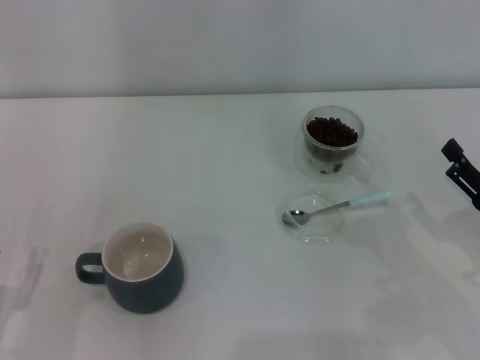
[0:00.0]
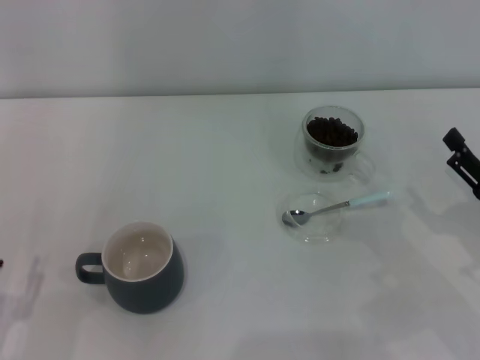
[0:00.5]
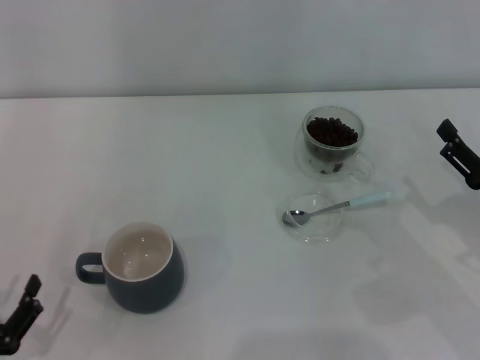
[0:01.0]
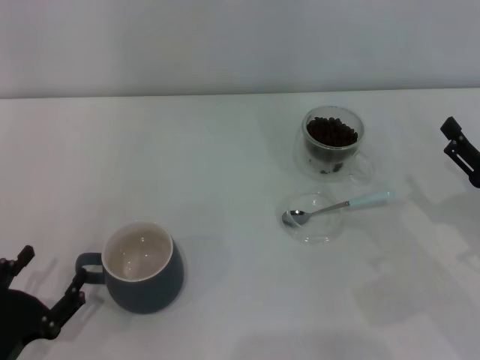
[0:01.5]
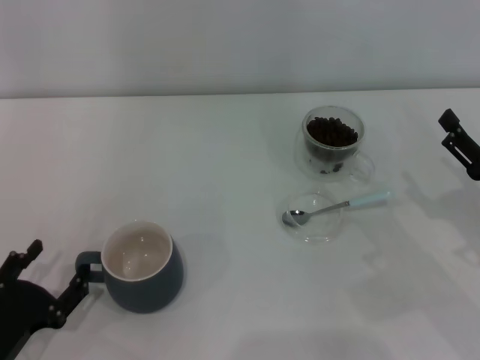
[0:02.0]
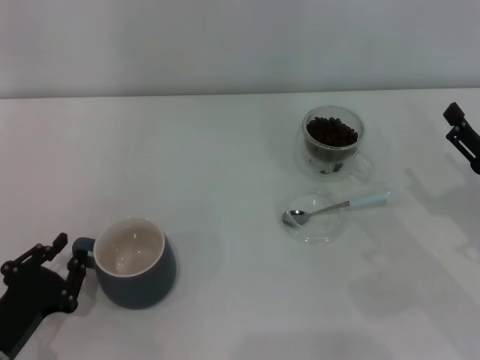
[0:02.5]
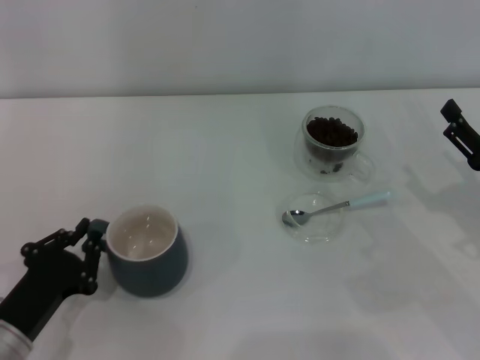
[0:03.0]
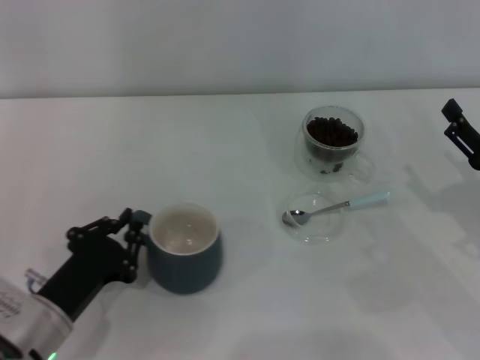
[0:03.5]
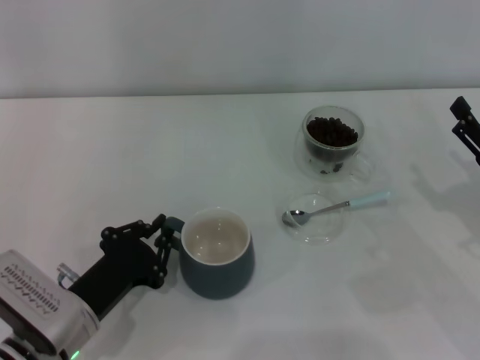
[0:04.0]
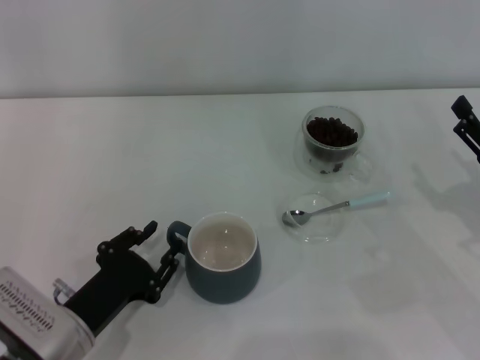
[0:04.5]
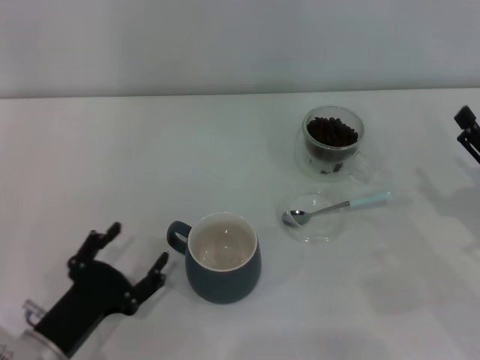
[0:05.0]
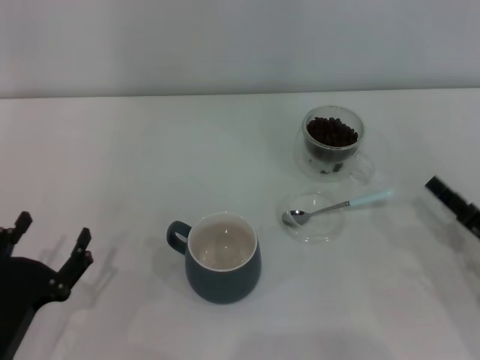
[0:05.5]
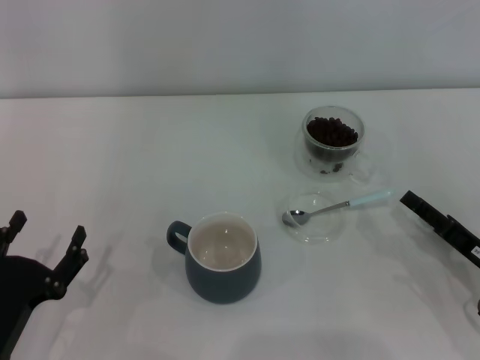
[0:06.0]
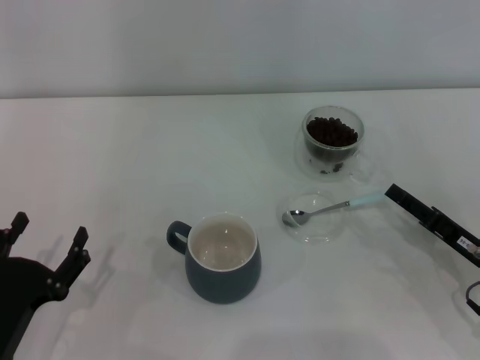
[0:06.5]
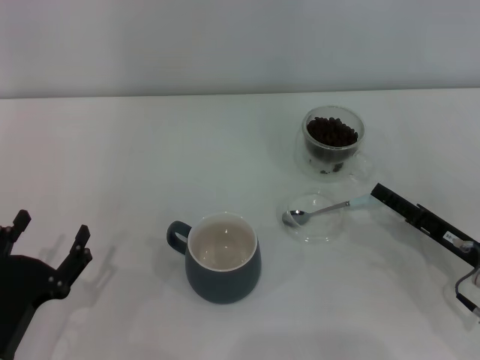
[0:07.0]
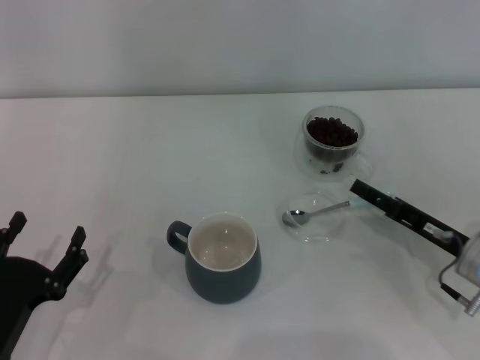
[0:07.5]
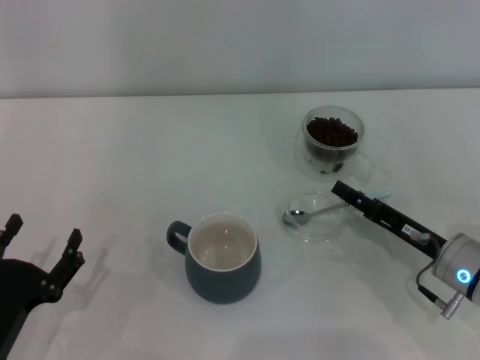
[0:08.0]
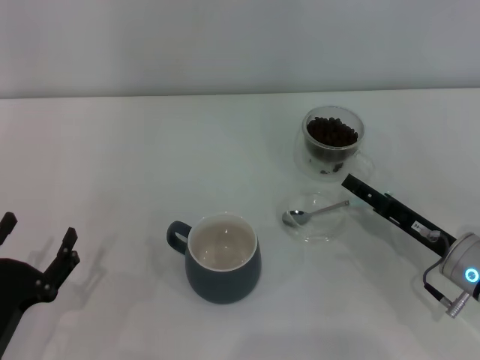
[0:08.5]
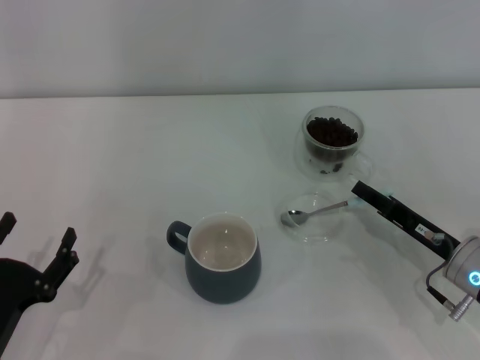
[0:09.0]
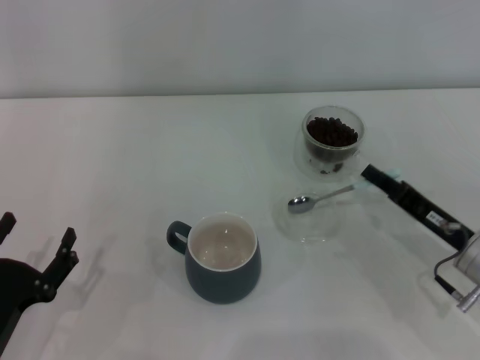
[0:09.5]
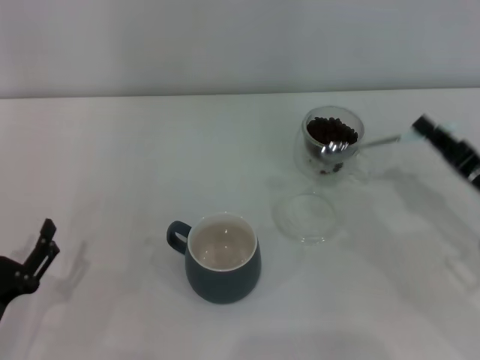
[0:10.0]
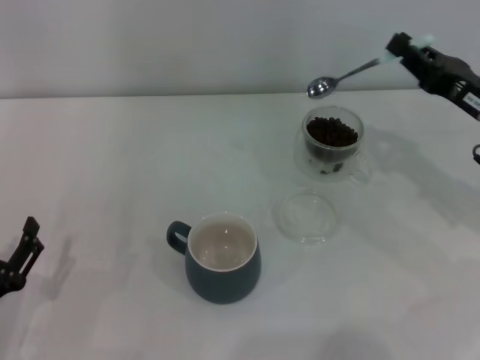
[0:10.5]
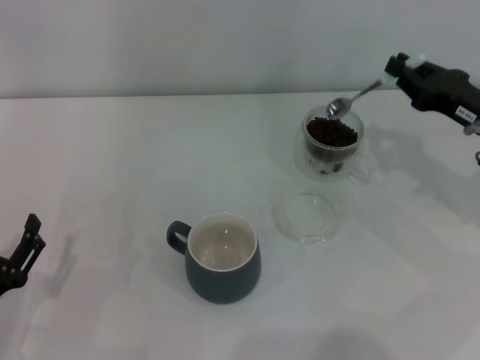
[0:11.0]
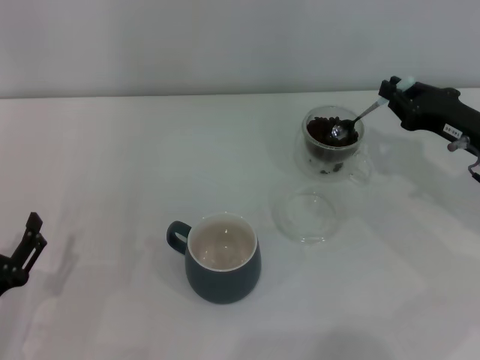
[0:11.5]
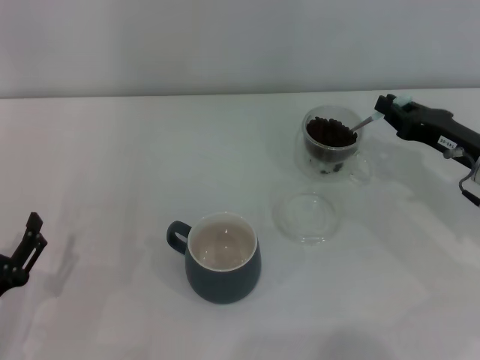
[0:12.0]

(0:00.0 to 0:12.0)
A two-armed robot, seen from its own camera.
Task of the whole recording: Use a blue spoon to take out the coffee beans from the glass and pour them into the gray cup.
Step, 0:00.0 - 0:04.5: Move the cup to the center of view with the left gripper.
Step, 0:05.0 - 0:09.5: Pick up the spoon with the right gripper.
0:02.0 - 0:04.0: The left gripper heads to the right and forward, covering approximately 10 cm, and closes its fingers.
0:04.0 - 0:06.0: The right gripper heads downward, covering roughly 5 cm, while the left gripper travels to the left and backward by approximately 10 cm, and opens up.
0:06.0 - 0:08.0: The right gripper shifts about 5 cm to the left.
0:08.0 - 0:10.0: The right gripper shifts some 5 cm to the right, and closes.
0:10.0 - 0:12.0: The right gripper is displaced forward by about 10 cm.

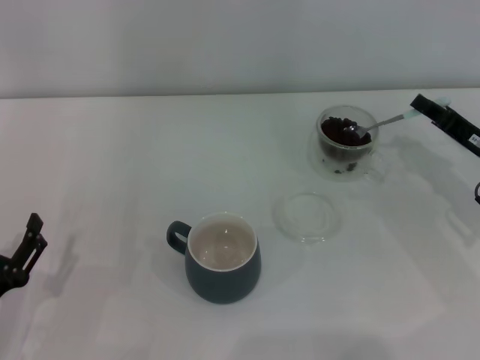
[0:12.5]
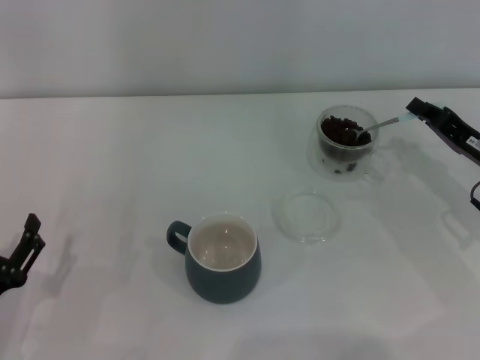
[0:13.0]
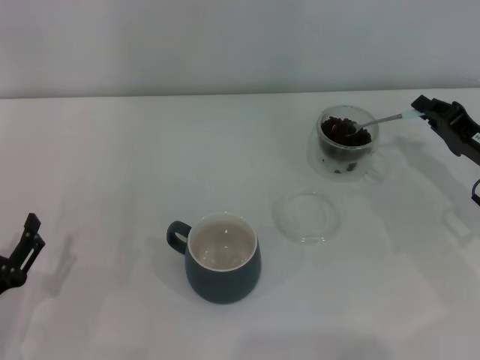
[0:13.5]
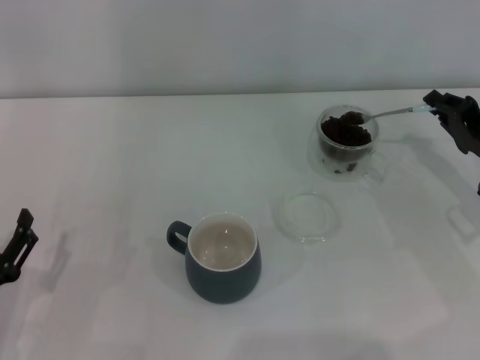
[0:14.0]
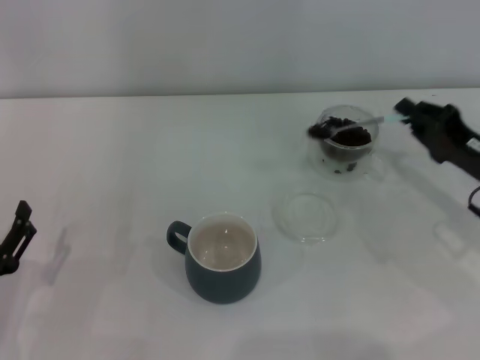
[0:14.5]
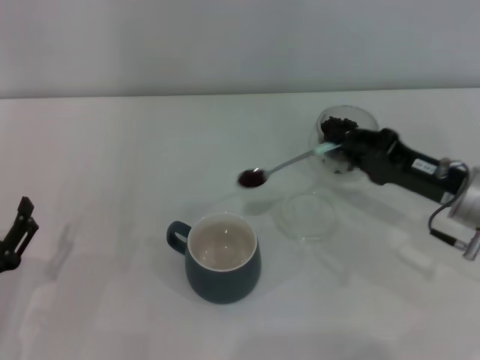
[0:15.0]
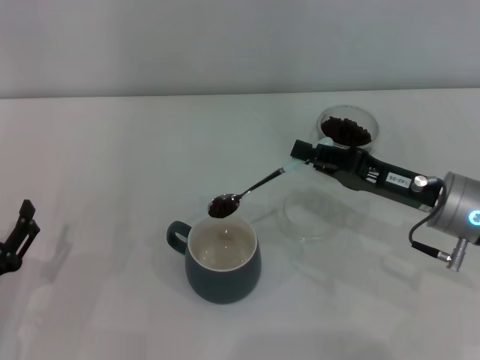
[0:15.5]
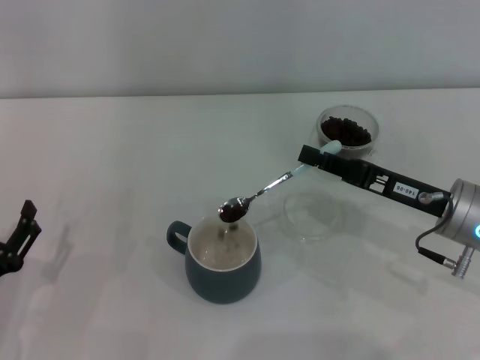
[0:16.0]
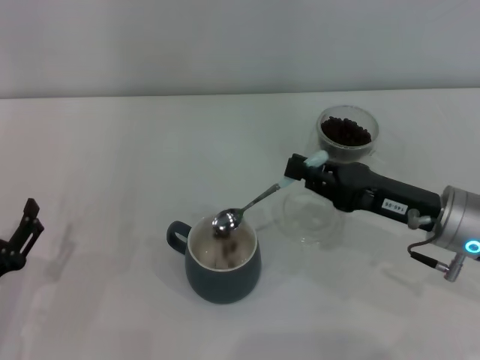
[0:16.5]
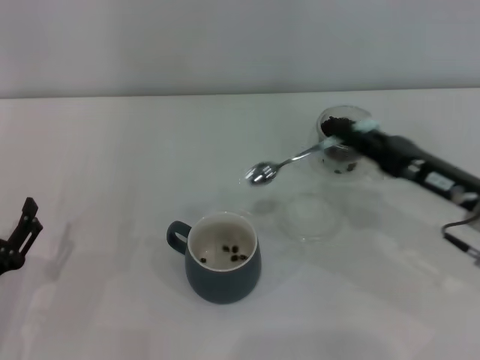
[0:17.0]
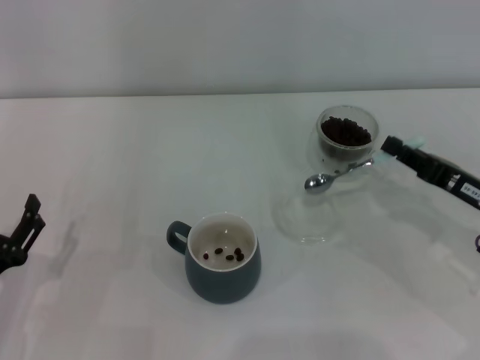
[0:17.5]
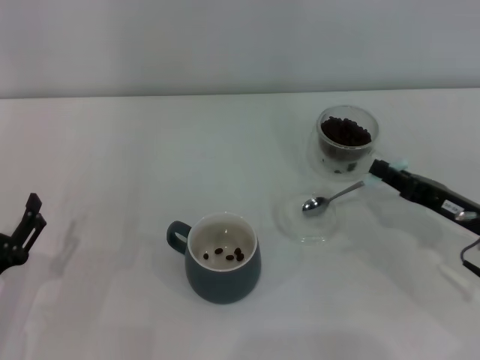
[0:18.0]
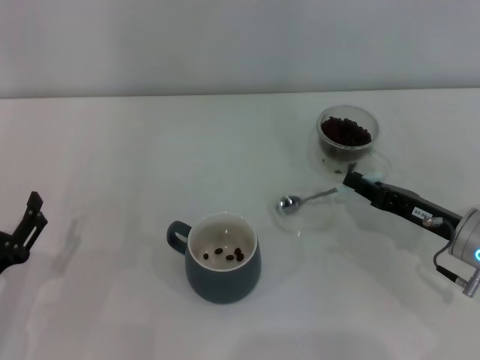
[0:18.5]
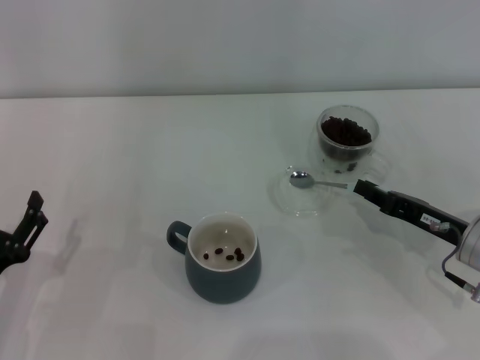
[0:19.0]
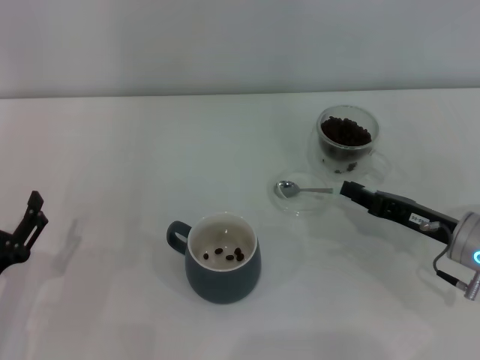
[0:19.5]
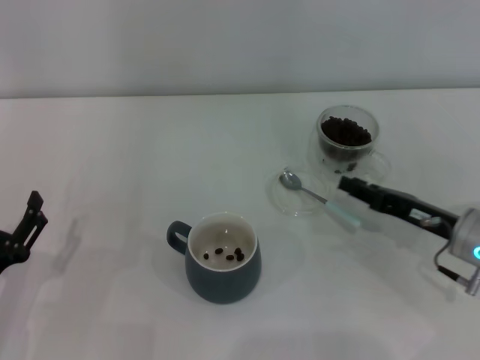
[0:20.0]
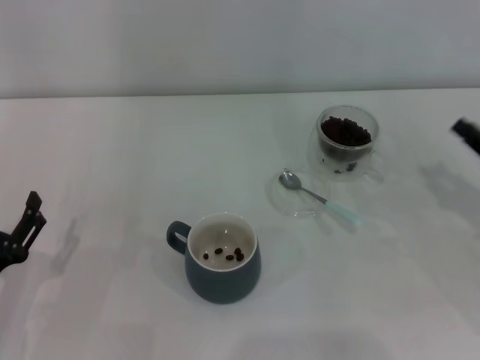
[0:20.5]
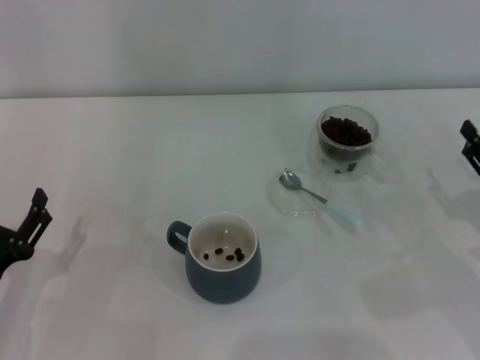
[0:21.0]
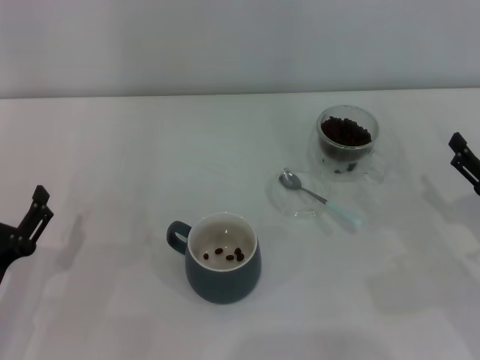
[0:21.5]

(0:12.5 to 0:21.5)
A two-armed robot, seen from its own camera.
Task of the whole recording: Use a blue spoon to take out the coffee beans from the glass and pour them into the gray cup.
Step, 0:12.5 - 0:16.5: Scoop a spoonful of beans into the cup with the right gripper.
Step, 0:17.0 - 0:20.0: Place the spoon back in its original place with the right gripper.
0:14.5 - 0:17.0: The right gripper changes place by roughly 5 cm.
0:17.0 - 0:19.5: The right gripper heads downward, covering some 5 cm.
0:19.5 - 0:21.5: The right gripper travels to the right by approximately 5 cm, and opens up.
